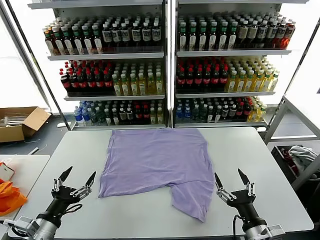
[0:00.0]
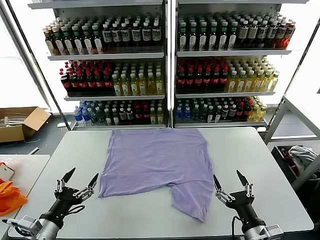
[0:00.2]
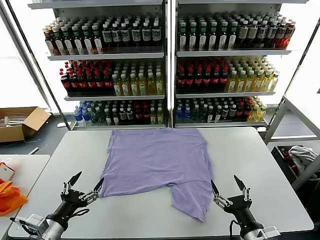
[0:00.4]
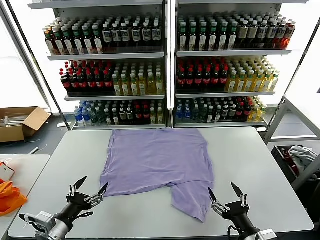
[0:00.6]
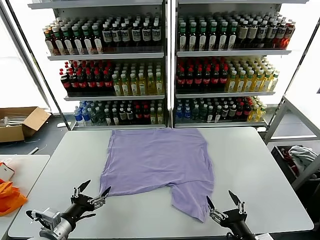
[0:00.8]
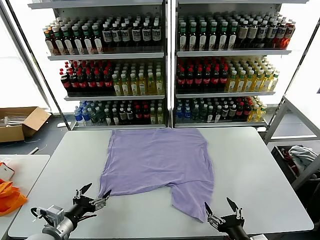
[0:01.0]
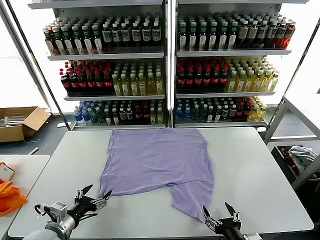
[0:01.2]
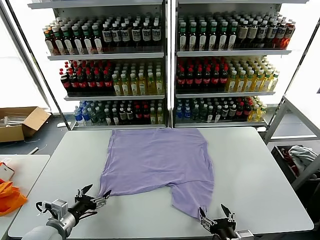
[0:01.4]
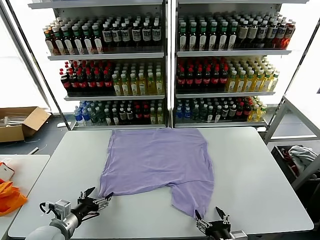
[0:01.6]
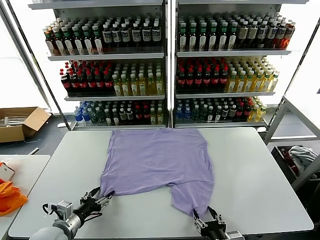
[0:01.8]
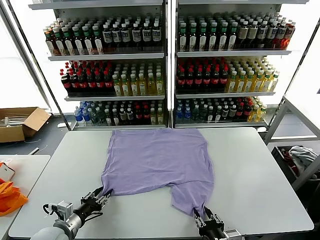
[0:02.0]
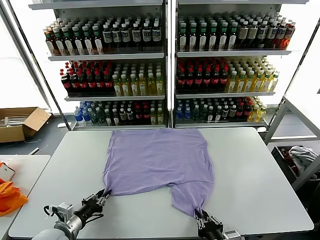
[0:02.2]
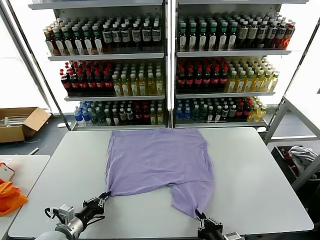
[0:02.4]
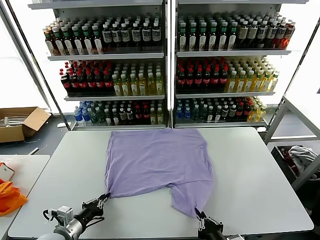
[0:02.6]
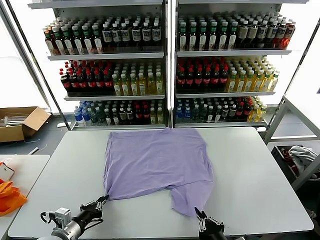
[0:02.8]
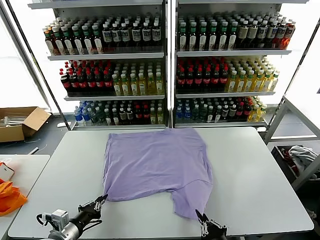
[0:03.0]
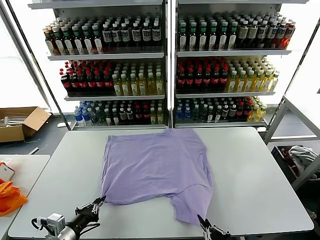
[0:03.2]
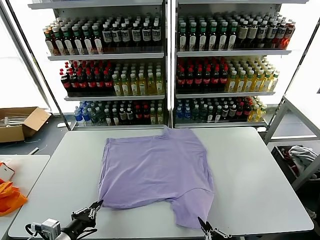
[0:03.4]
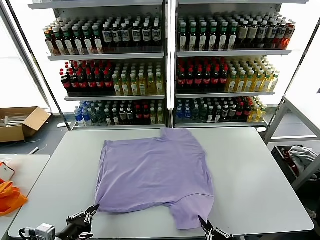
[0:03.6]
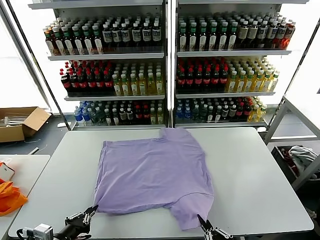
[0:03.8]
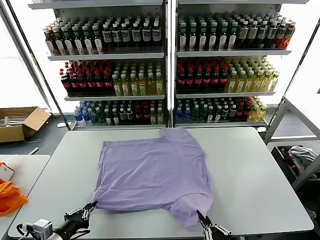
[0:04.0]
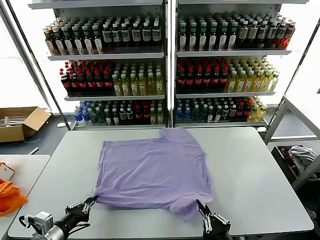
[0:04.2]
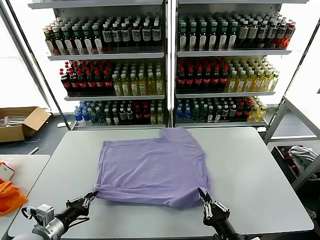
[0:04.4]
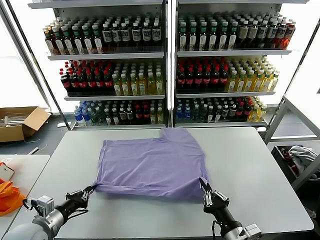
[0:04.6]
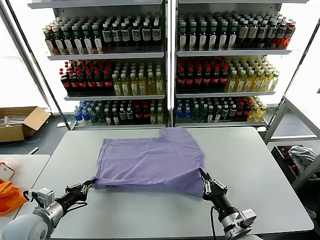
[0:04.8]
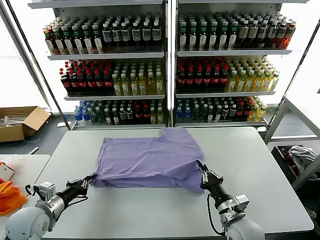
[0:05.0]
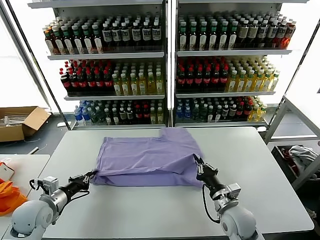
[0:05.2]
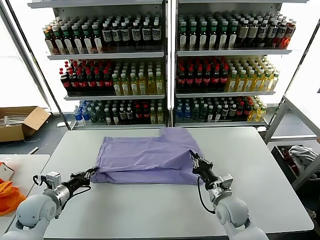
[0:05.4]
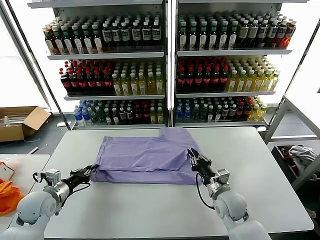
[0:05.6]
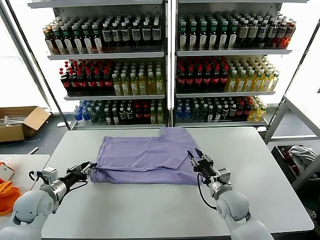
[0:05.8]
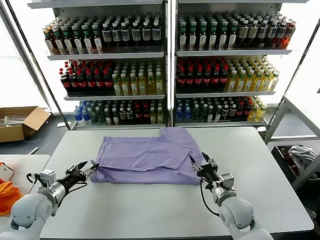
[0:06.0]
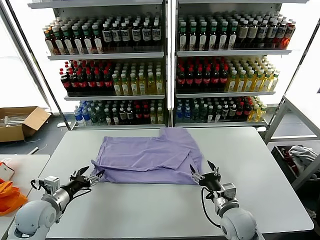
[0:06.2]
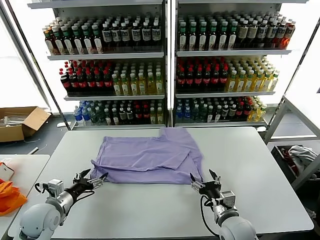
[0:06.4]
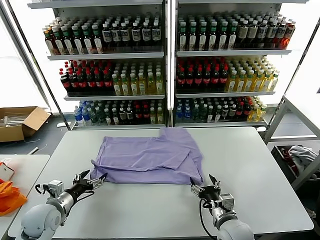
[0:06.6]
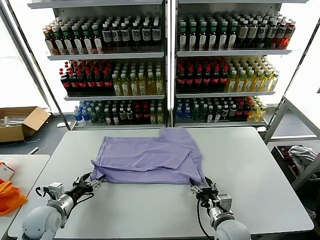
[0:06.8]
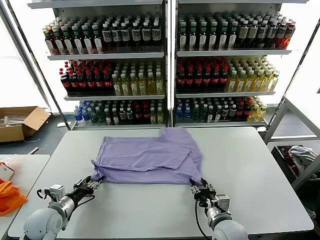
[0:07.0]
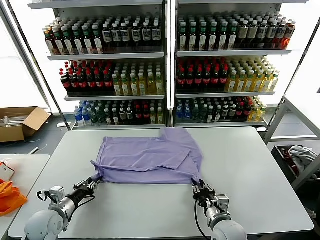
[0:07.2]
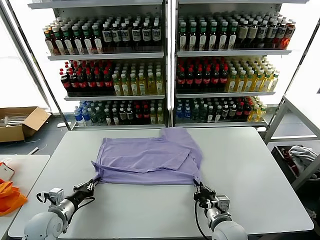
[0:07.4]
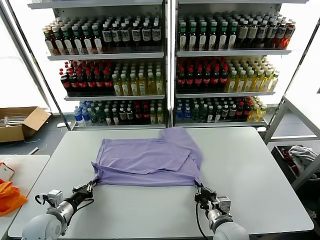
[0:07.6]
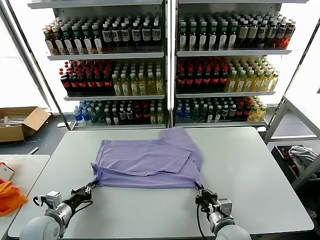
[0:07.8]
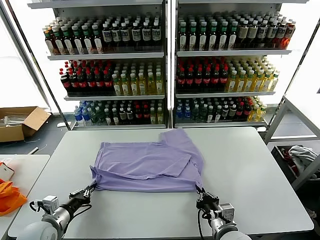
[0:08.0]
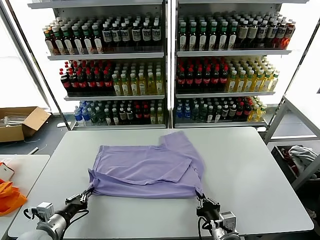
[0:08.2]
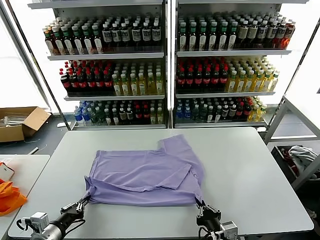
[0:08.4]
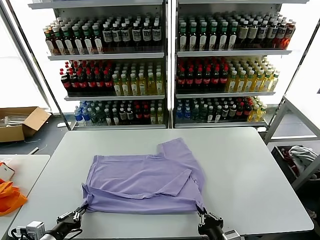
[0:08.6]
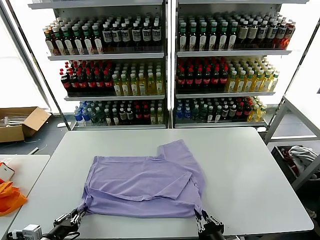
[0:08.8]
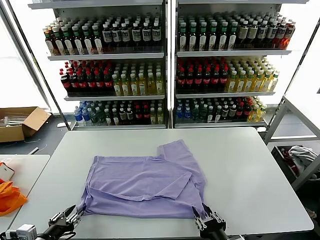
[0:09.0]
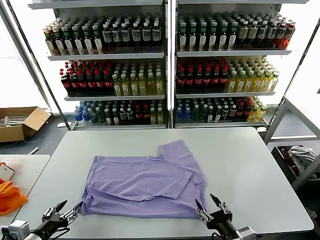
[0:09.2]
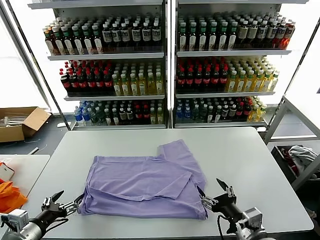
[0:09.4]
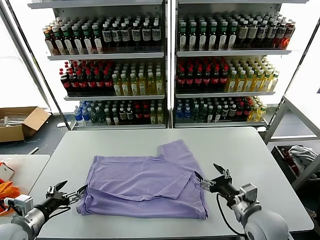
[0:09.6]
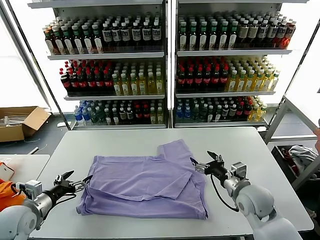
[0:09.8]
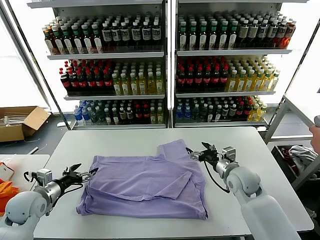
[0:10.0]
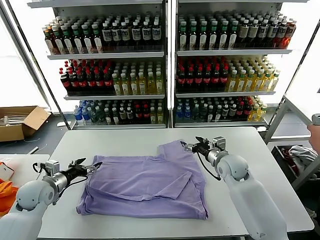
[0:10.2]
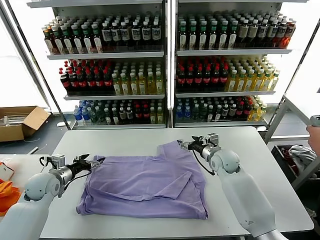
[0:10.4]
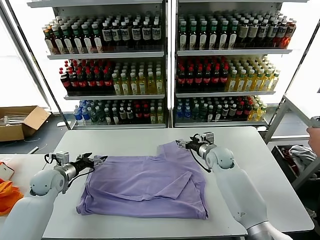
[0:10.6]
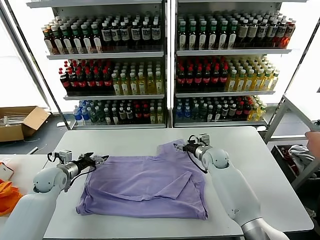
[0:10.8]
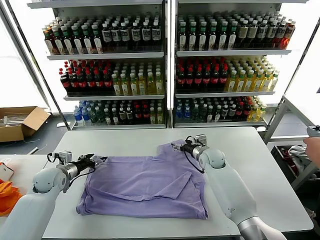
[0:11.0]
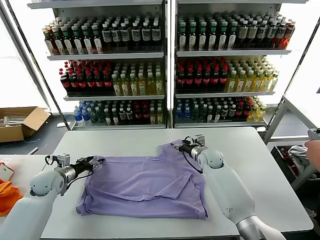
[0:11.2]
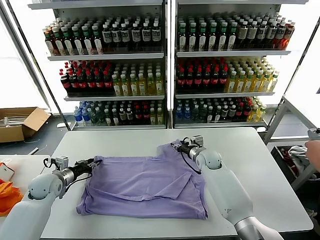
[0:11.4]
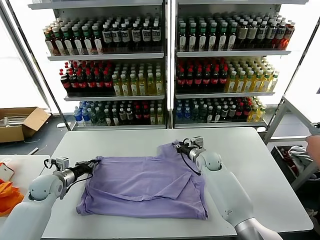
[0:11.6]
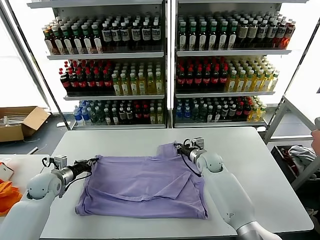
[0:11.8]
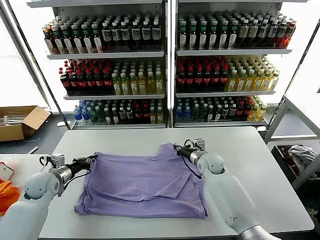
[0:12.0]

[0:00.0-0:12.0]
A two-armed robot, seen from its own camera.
Task of the whole recording: fold and organize the clothes.
Step, 0.0 to 2.4 s: use both grippers simultaneously to clamp the lower edge of the clothing fabric.
Step, 2.6 to 5.8 s: use both grippers to drag the lower edge of the fabric forward and fold it over the upper edge.
Step, 6.0 to 9.0 s: Drag the clothes downward with both gripper.
Step, 9.2 to 11.8 s: use both grippers simultaneously to clamp the upper edge of the clothing fabric.
1.6 to 3.0 s: The left gripper closes up. Meanwhile the right gripper moves about 5 cm, and closes.
3.0 to 4.4 s: The right gripper is displaced forward by some 5 cm.
4.4 to 6.0 s: Both grippers move forward, some 15 cm. The right gripper opens its fingers; the left gripper opens up.
6.0 to 7.6 s: The right gripper moves backward, roughly 5 cm, and closes, while the left gripper travels downward by approximately 5 cm, and closes.
7.6 to 9.0 s: The grippers both shift backward and upward by about 15 cm. The right gripper opens its fingers. Meanwhile the left gripper opens its fingers.
9.0 to 10.4 s: The right gripper shifts some 35 cm forward, and opens, while the left gripper heads forward, covering about 25 cm, and opens up.
10.4 to 12.0 s: The right gripper closes its fingers. Meanwhile the left gripper closes its fingers.

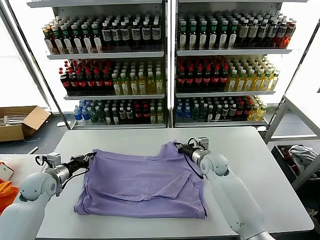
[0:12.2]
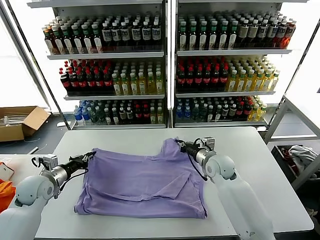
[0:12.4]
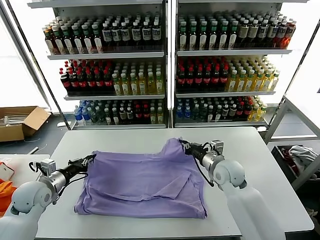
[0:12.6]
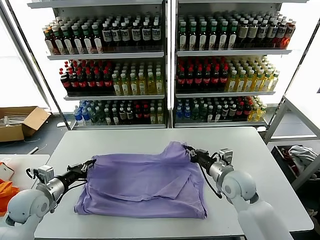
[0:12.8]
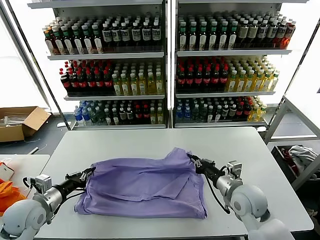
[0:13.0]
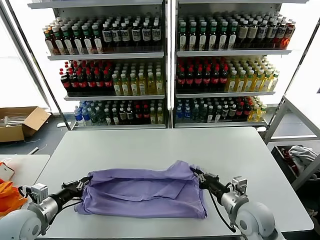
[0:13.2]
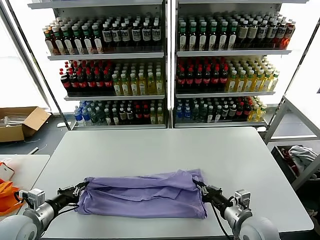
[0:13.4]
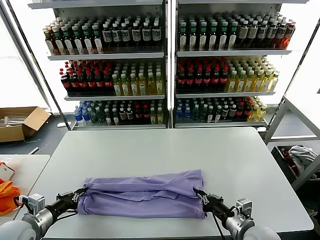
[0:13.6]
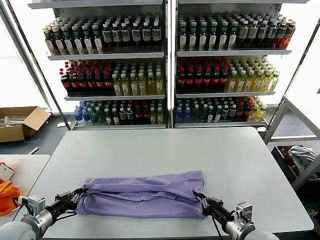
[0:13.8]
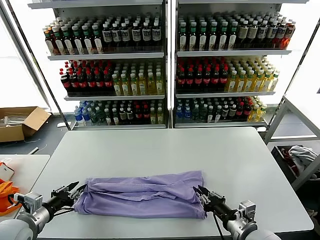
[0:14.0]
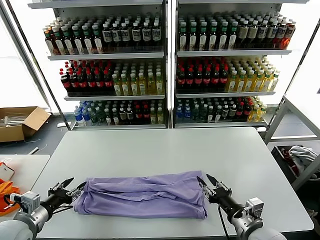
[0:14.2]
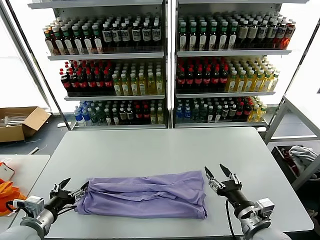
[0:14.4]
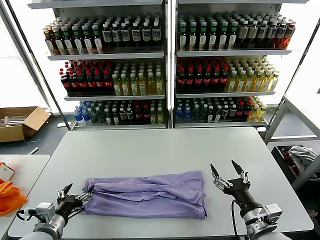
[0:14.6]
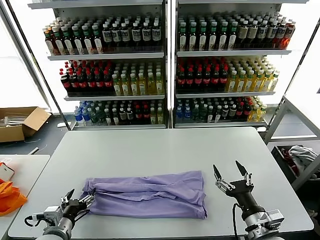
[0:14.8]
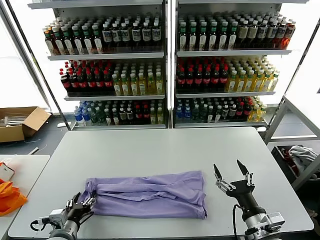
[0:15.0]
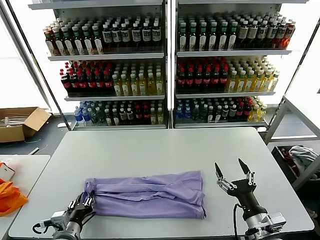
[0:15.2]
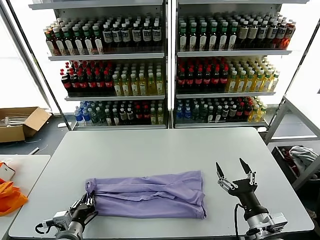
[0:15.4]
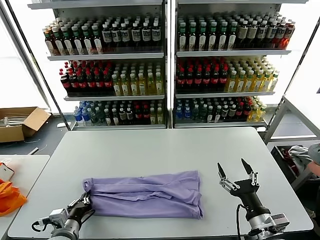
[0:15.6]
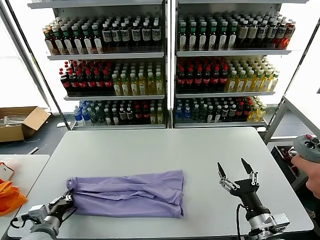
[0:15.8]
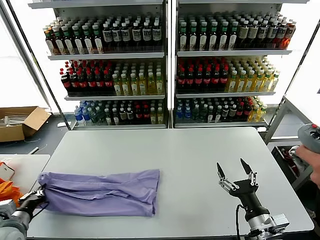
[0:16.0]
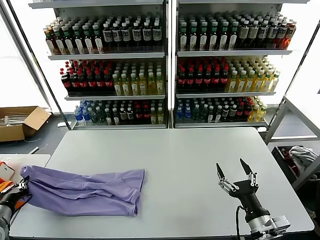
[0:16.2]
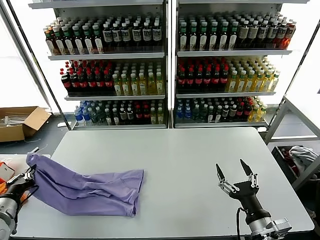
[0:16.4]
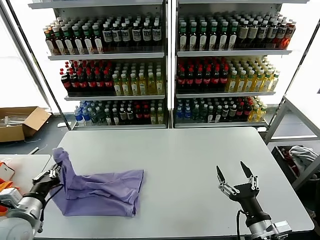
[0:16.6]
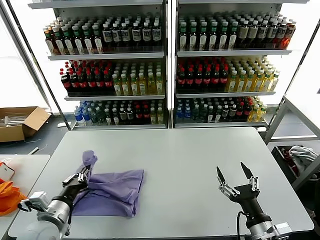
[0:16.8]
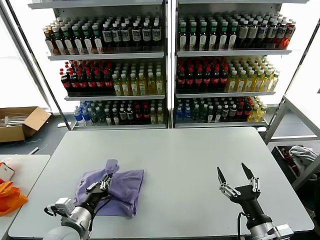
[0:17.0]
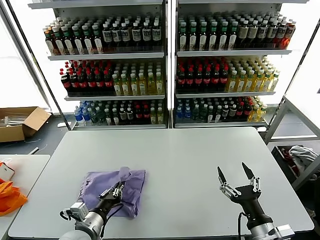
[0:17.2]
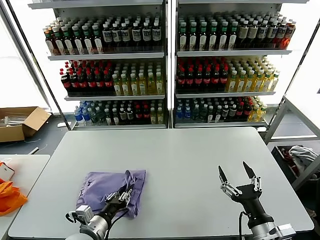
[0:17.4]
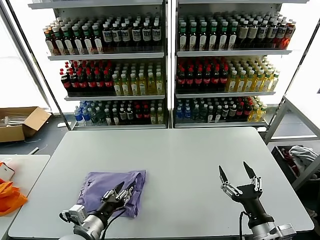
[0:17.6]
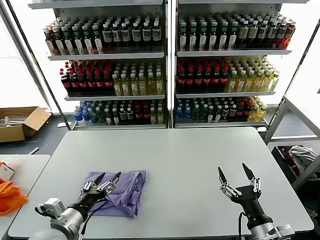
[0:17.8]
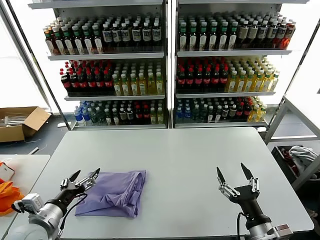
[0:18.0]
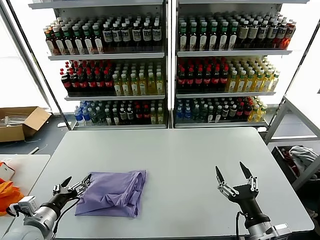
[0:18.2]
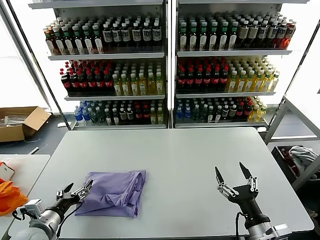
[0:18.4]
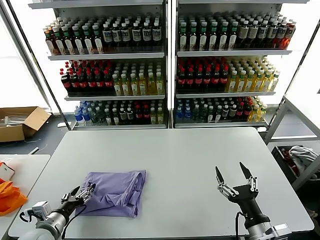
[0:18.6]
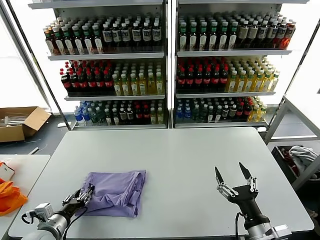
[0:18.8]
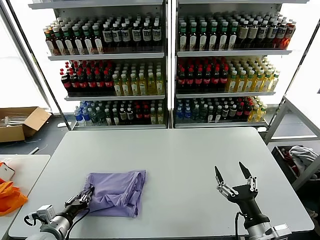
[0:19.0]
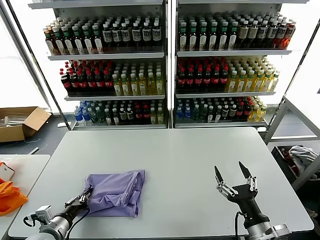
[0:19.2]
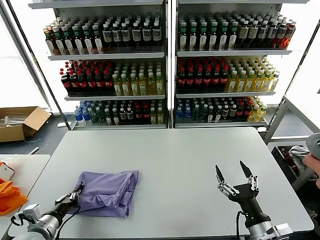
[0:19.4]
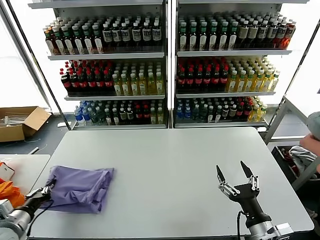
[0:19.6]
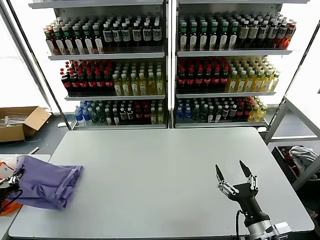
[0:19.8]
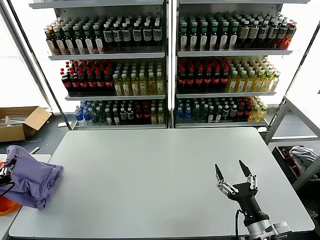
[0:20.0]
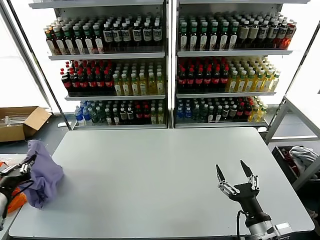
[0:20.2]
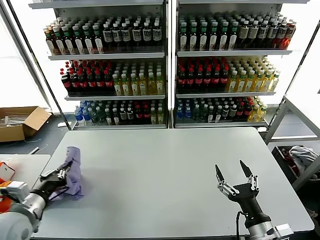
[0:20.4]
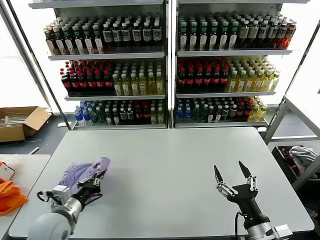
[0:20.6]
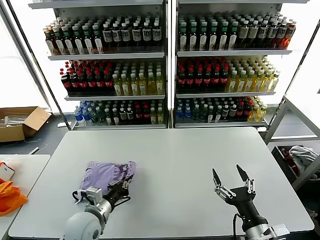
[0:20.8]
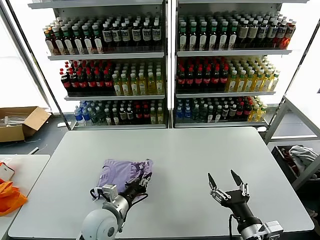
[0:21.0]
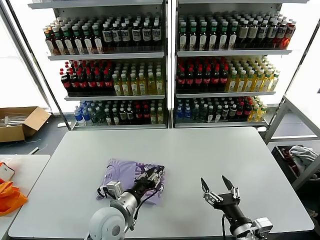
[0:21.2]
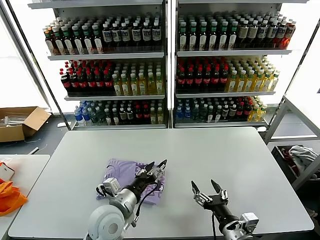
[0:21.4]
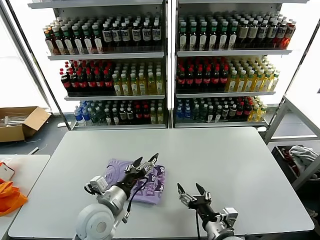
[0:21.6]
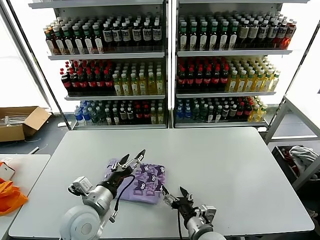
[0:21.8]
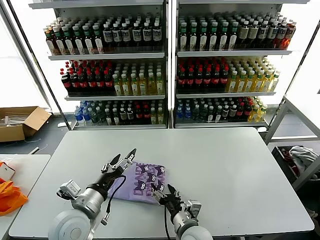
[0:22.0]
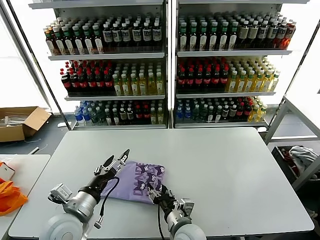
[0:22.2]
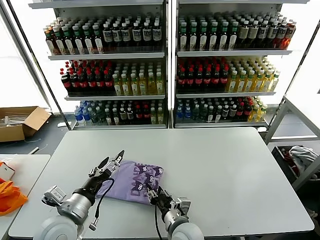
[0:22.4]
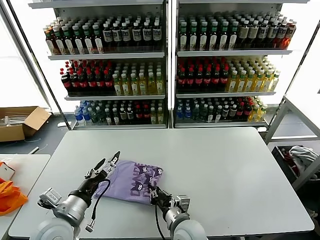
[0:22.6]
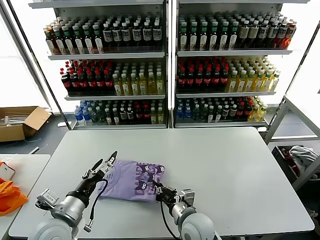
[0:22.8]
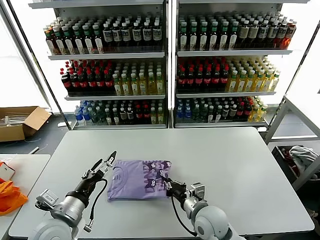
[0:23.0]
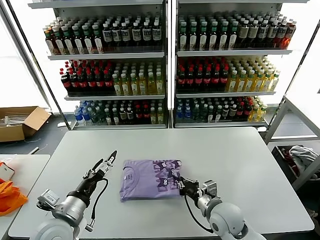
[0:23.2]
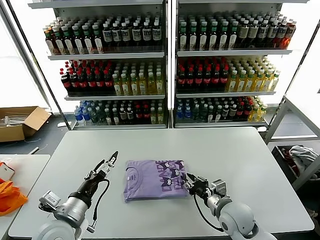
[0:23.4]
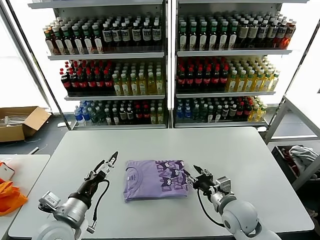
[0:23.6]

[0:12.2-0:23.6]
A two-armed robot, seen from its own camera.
Task of the whole recording: fold and organize the clothes.
Step, 12.2 to 14.0 s: use both grippers to drag the upper edge of the fabric backward and fold it over the lower edge.
Step, 14.2 to 15.4 s: use the left gripper to clamp the left edge of the fabric.
Step, 15.8 to 17.4 s: use the left gripper to drag the left edge of the fabric to the left and folds it over the right edge.
Step, 17.6 to 21.0 s: Flip the folded clothes over with left gripper.
12.2 to 13.6 s: The left gripper shifts about 15 cm backward, while the right gripper moves backward, about 25 cm.
13.6 to 15.0 s: The left gripper goes roughly 10 cm to the right and downward, and opens up. Meanwhile the right gripper opens.
15.0 to 16.4 s: The left gripper goes roughly 20 cm to the left and upward, and closes.
16.4 to 17.8 s: The left gripper heads to the right, covering some 20 cm, and opens its fingers.
17.8 to 19.4 s: The left gripper shifts approximately 10 cm to the left and downward, and closes up.
19.4 to 20.8 s: The left gripper is displaced to the right and forward by roughly 10 cm.
20.8 to 22.2 s: The left gripper travels upward by some 5 cm, goes to the right and returns, about 10 cm each way, and opens its fingers. Meanwhile the right gripper travels to the left, forward and downward by approximately 20 cm.
22.2 to 23.6 s: The right gripper travels to the right by approximately 15 cm, and closes, then reopens.
